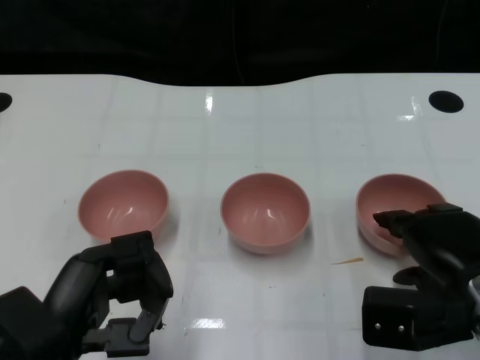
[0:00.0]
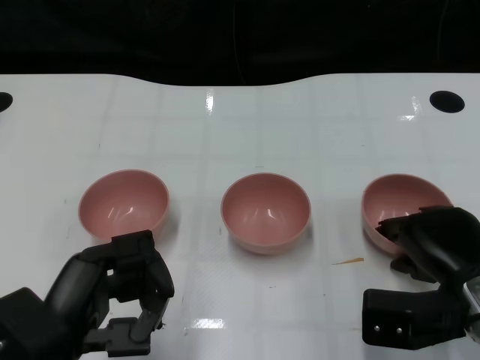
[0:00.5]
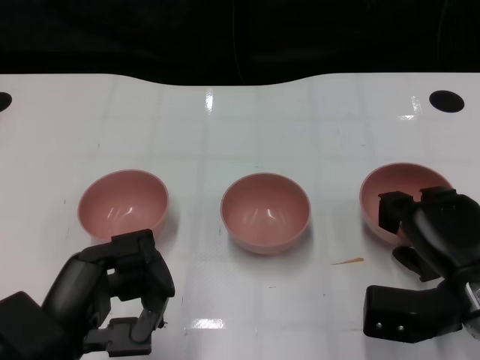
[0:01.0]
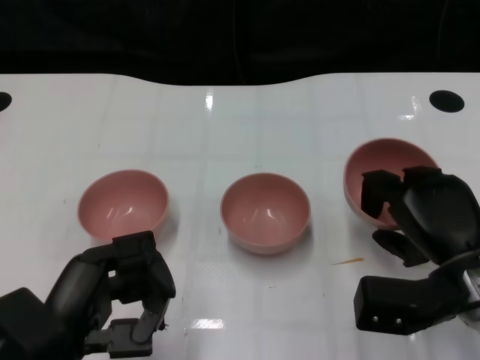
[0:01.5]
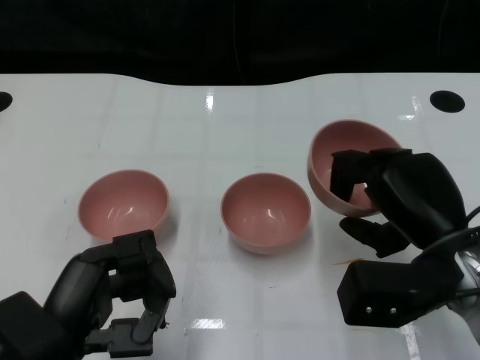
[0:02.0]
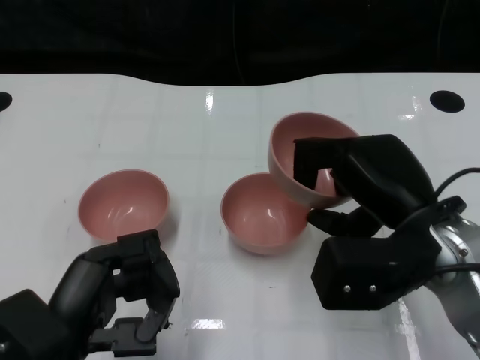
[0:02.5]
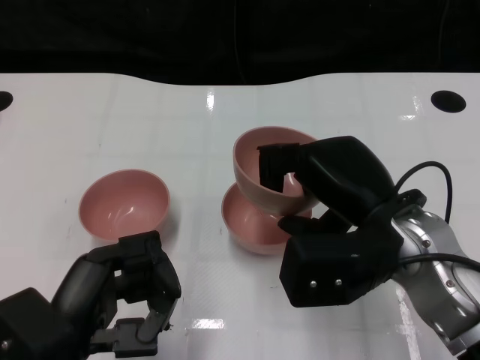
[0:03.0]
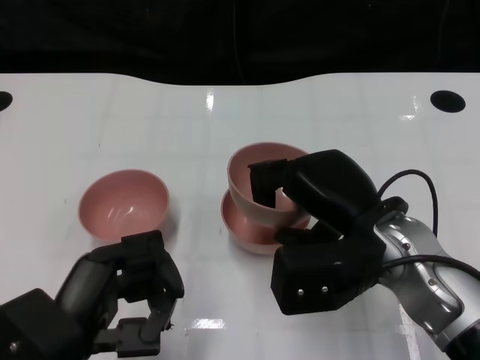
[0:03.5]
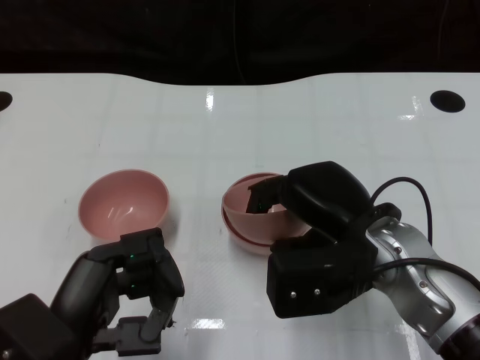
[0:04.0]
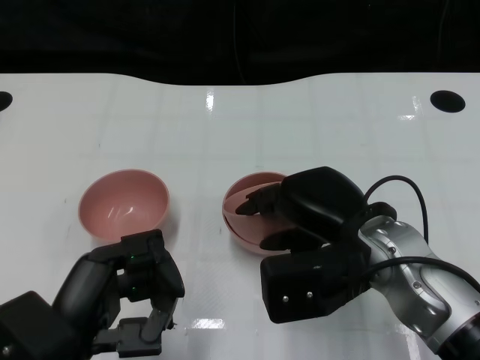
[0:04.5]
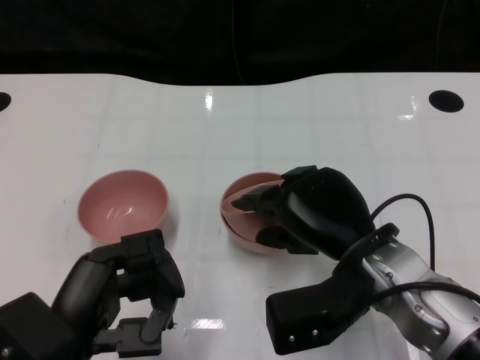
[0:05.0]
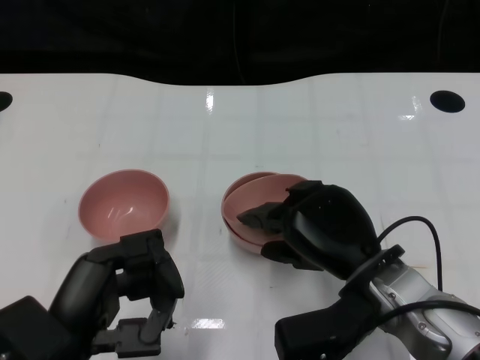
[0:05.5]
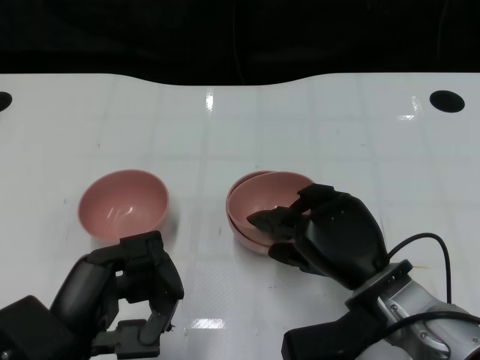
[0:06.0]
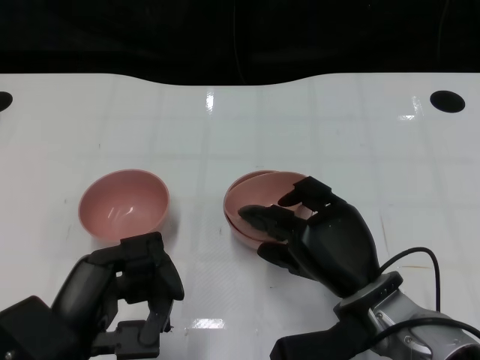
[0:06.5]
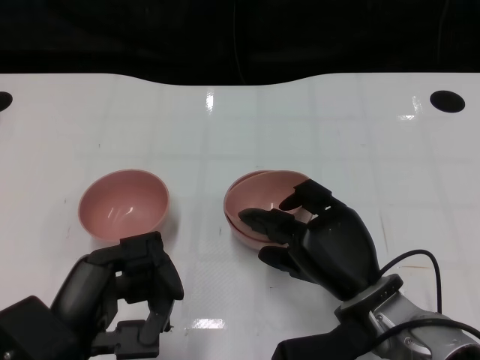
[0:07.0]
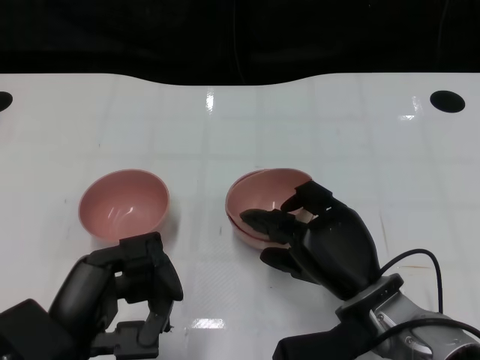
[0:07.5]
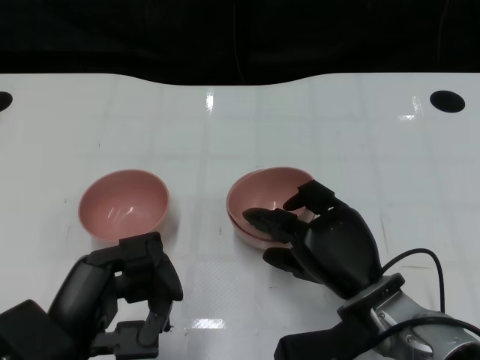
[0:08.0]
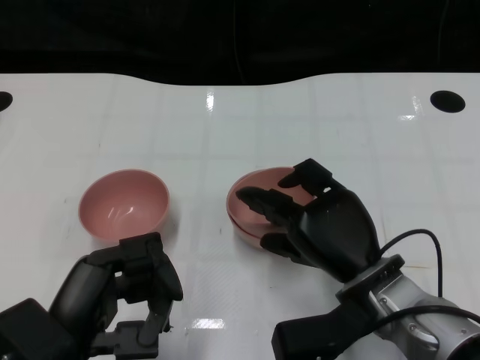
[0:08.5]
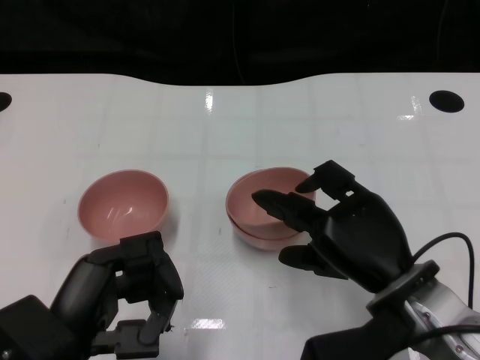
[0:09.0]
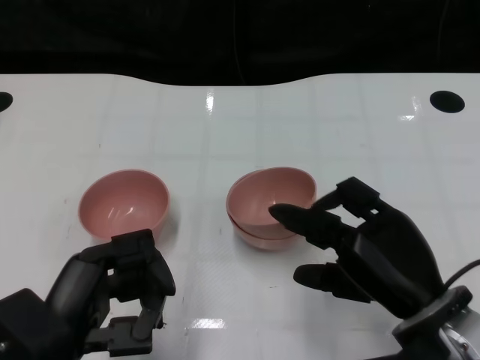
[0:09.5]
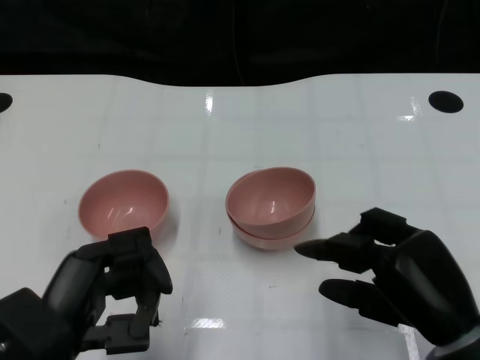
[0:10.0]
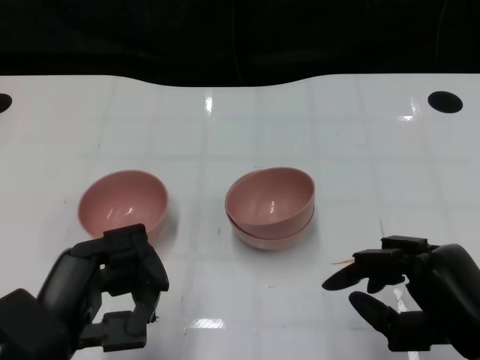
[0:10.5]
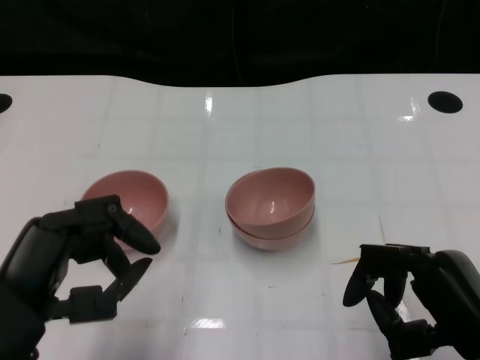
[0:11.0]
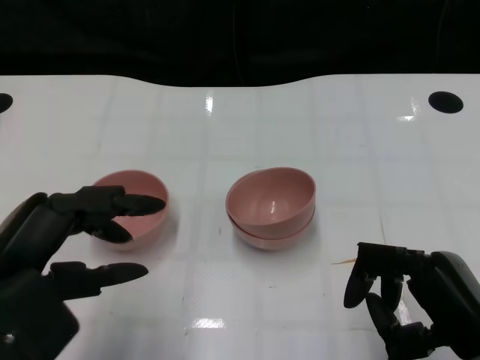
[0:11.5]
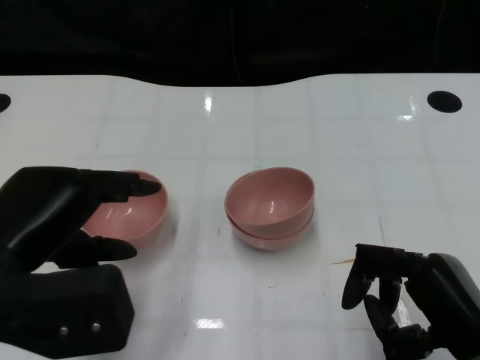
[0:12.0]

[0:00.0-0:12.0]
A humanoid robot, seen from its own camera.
Task of the whole recording: Pick up the bowl on one side of the table and place it on top of the middle bowl, then pick up the bowl on the other side of the table and place it on top of the middle bowls.
Step, 0:01.5 to 0:09.0: Place the bowl on the right onto the bowl in the middle with right gripper.
0:00.0 to 0:02.0: The right hand changes place by approximately 5 cm.
0:02.0 to 0:04.0: The right hand shifts approximately 5 cm to the left.
0:04.0 to 0:06.0: The right hand is displaced downward by approximately 5 cm.
0:06.0 to 0:08.0: The hands make only small movements.
0:08.0 to 0:10.0: The right hand is displaced to the right, backward and upward by about 10 cm.
0:10.0 to 0:12.0: The left hand travels upward by about 5 cm.

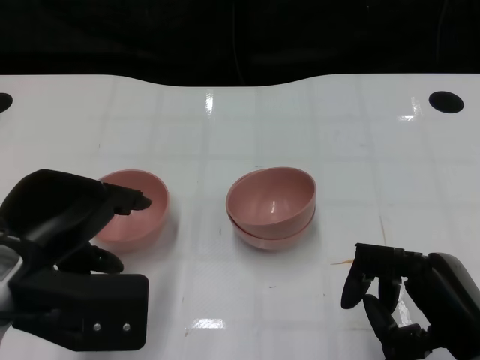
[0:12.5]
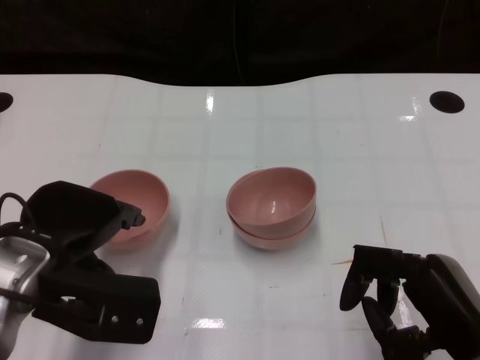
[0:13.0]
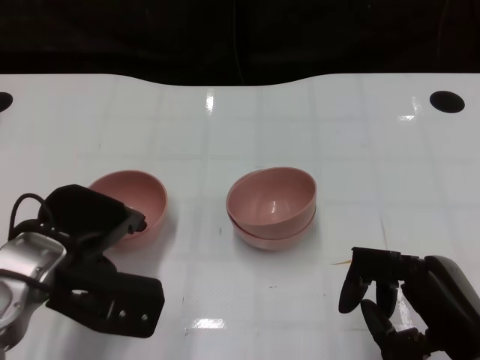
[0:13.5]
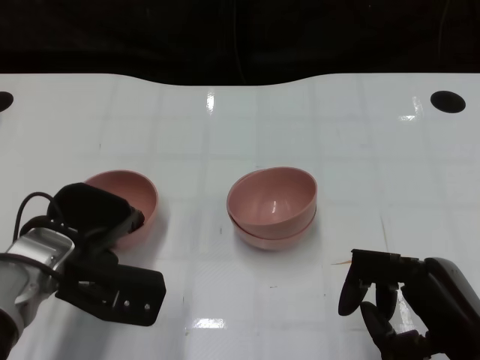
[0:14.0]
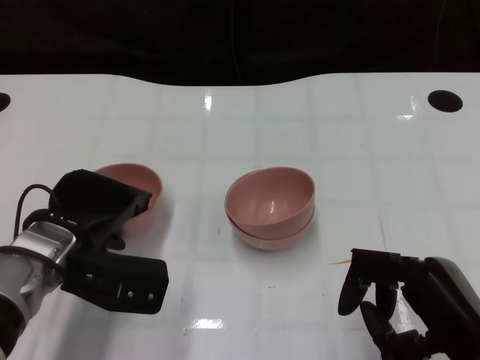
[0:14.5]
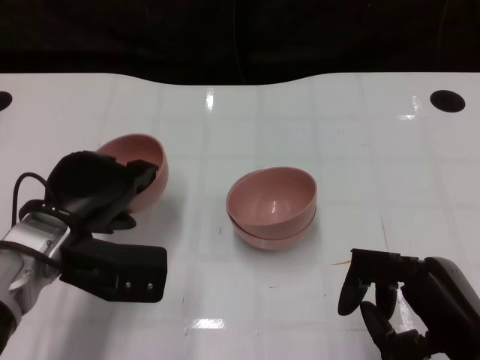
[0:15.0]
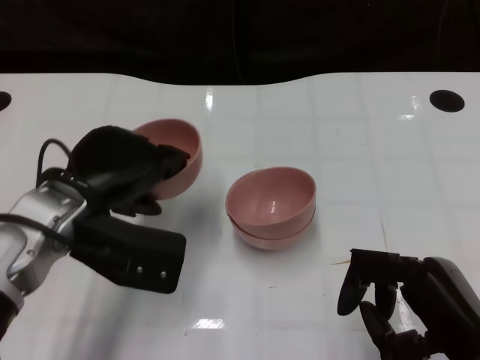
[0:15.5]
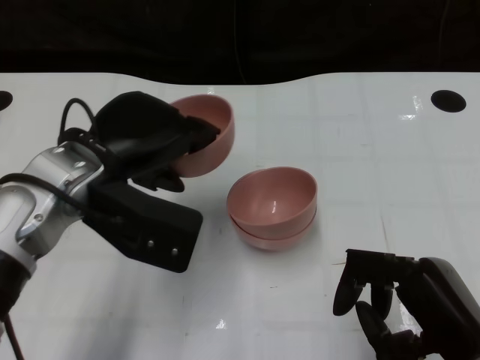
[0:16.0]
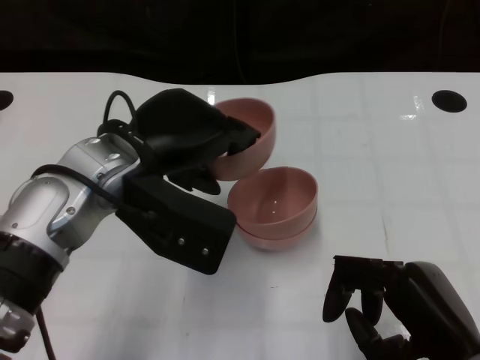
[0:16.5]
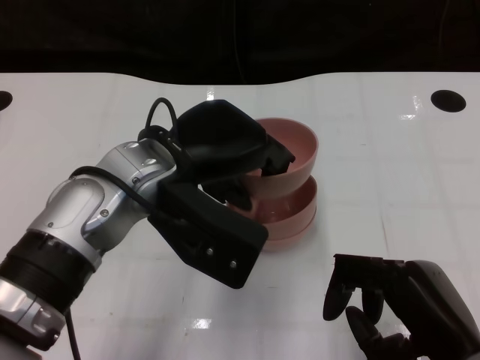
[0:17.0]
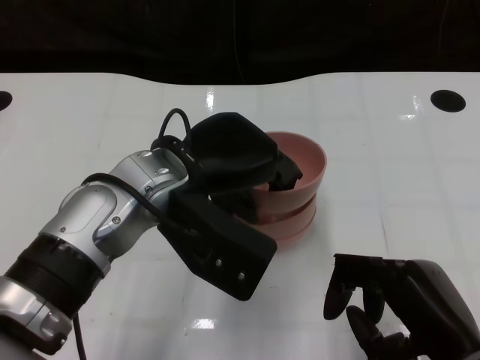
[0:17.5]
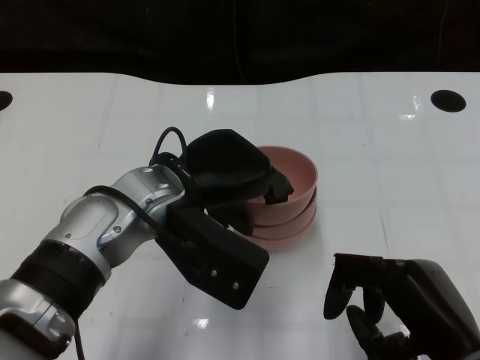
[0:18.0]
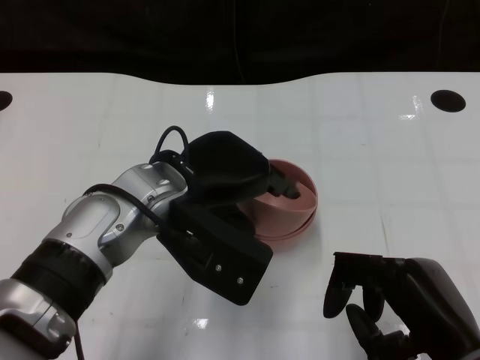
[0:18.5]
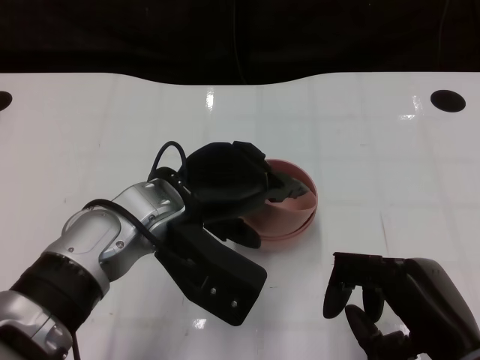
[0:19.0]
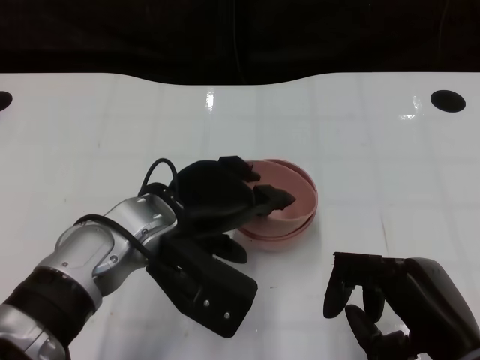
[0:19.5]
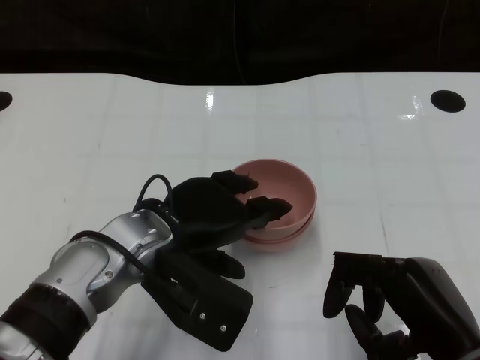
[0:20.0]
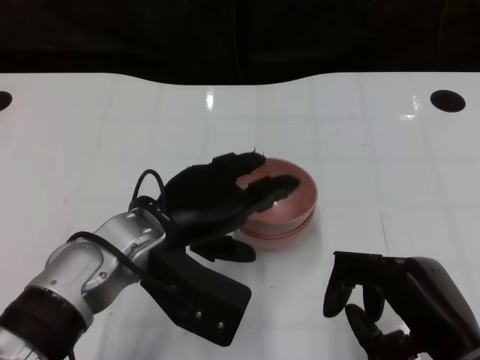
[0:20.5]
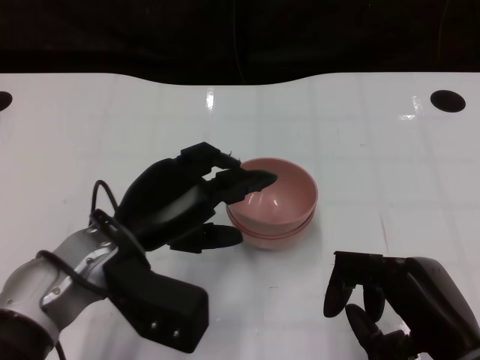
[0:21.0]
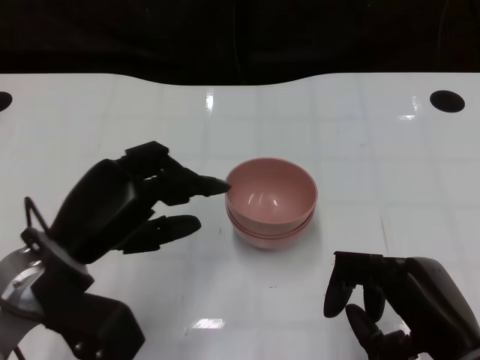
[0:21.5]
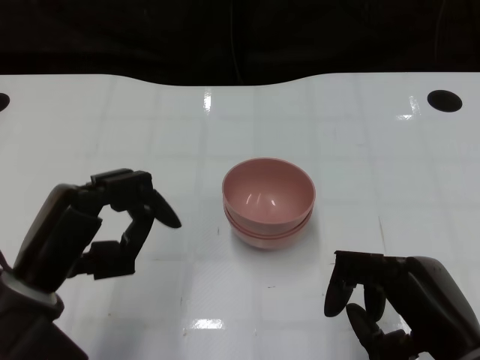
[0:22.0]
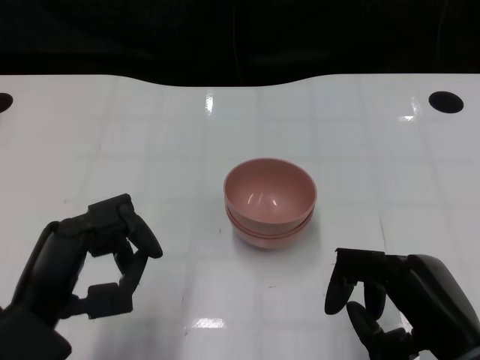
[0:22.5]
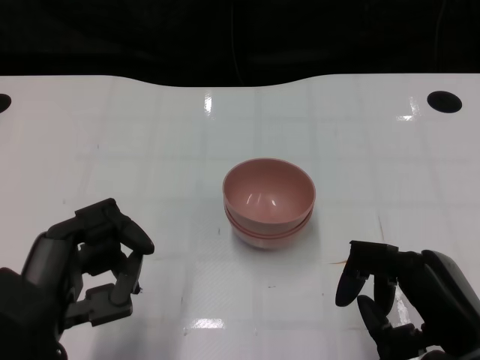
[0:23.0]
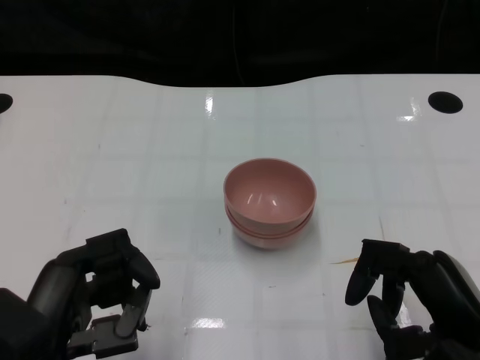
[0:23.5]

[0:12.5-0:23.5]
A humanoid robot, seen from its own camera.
Task of the whole recording: Pick up the bowl on one side of the table and place it on top of the middle bowl, then pick up the bowl on the other side of the table and place it on top of the middle bowls.
Step, 0:12.5 to 0:14.5: Grasp the bowl on the left with the left gripper.
Step, 0:15.0 to 0:21.0: Place the bowl on the left onto the bowl in the middle with left gripper.
0:12.5 to 0:14.5: The left hand heads downward and forward, covering roughly 10 cm.
0:14.5 to 0:16.0: The left hand moves upward, approximately 10 cm.
0:16.0 to 0:18.0: The left hand heads to the right, covering roughly 5 cm.
0:18.0 to 0:20.0: The hands stay close to where they were, moving slightly.
0:20.0 to 0:21.5: The left hand moves to the left, approximately 10 cm.
0:21.5 to 0:23.5: The left hand moves backward, roughly 10 cm.

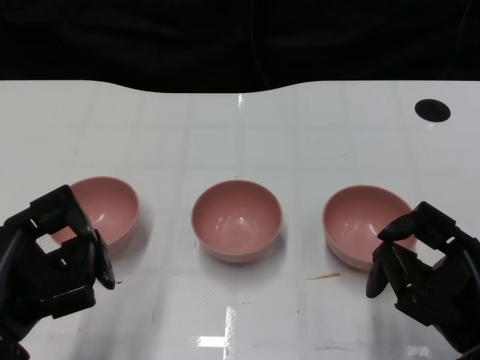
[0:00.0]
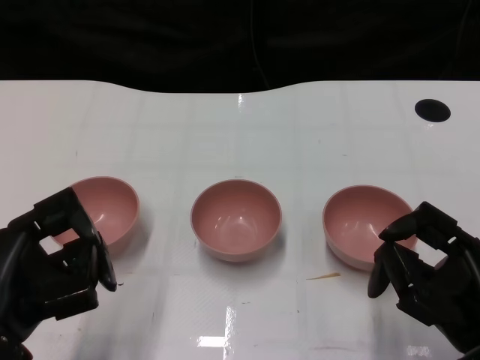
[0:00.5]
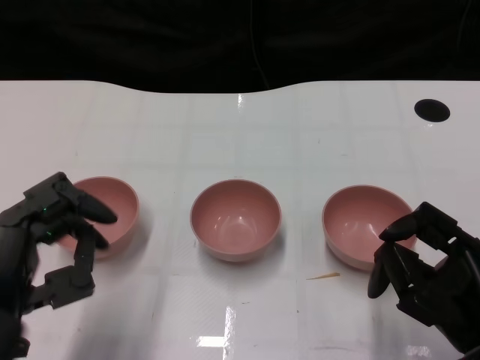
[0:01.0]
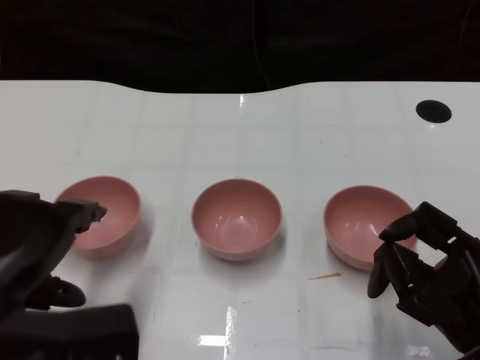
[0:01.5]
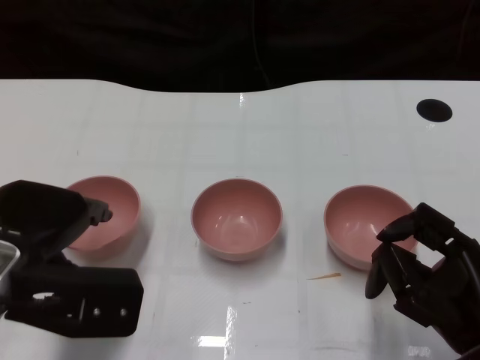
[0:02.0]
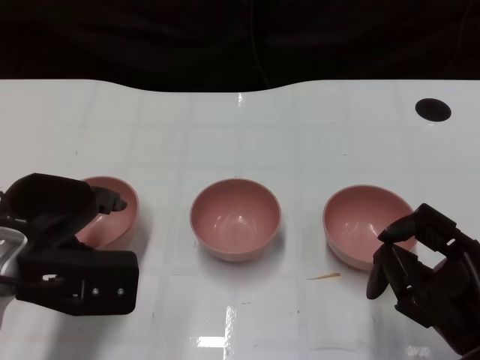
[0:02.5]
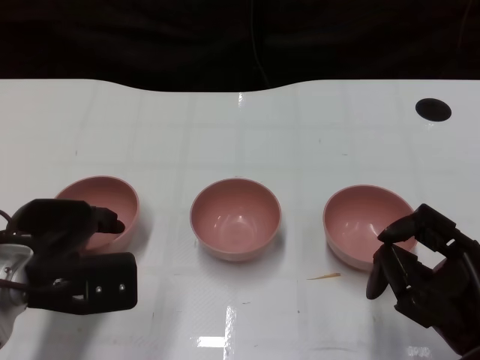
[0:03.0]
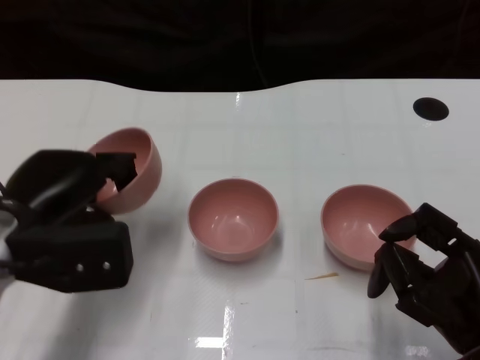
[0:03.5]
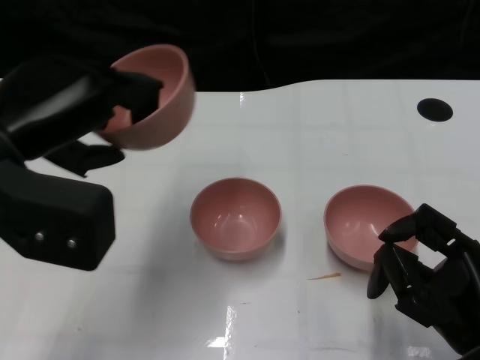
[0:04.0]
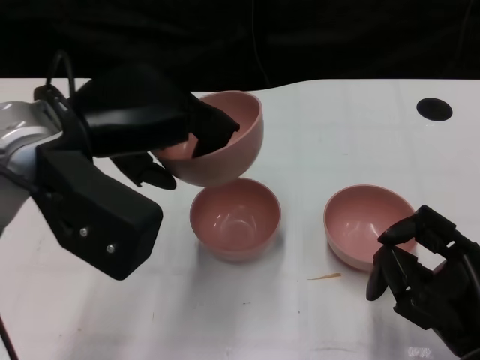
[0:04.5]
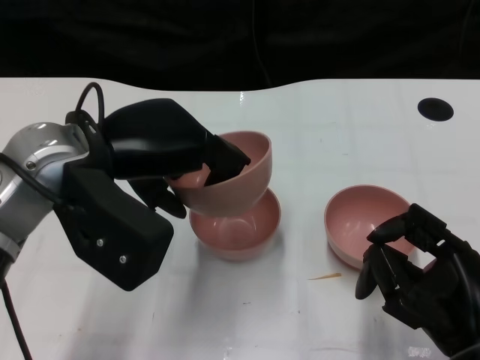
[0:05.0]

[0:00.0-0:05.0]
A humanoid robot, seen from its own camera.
Task of the whole recording: Pick up the bowl on one side of the table and place it on top of the middle bowl, then pick up the bowl on the other side of the table and place it on top of the middle bowls.
Step, 0:01.0 to 0:03.0: Grasp the bowl on the left with the left gripper.
0:02.5 to 0:05.0: The left hand travels upward and to the right by some 10 cm.
